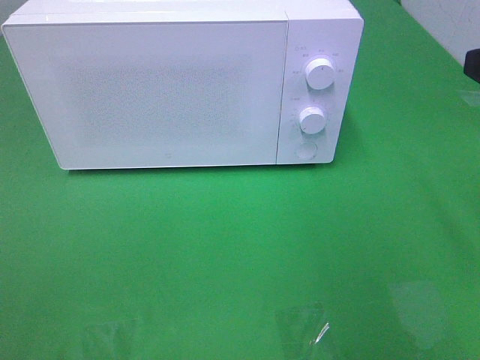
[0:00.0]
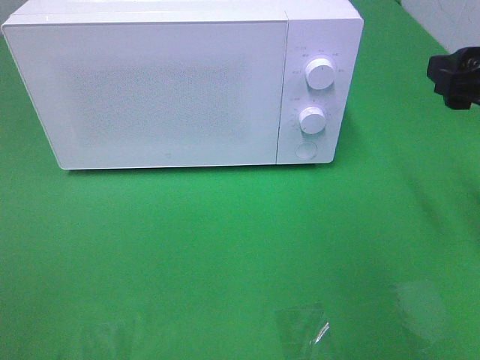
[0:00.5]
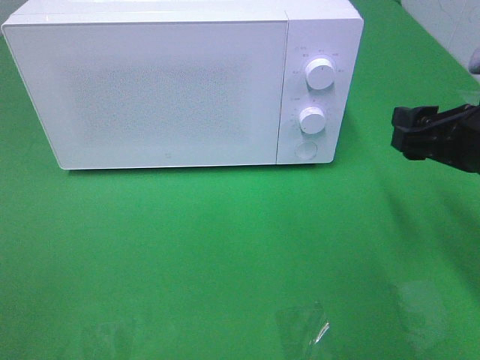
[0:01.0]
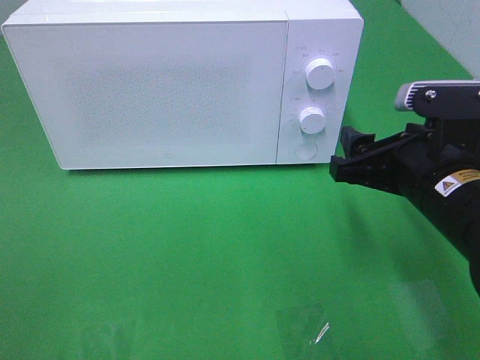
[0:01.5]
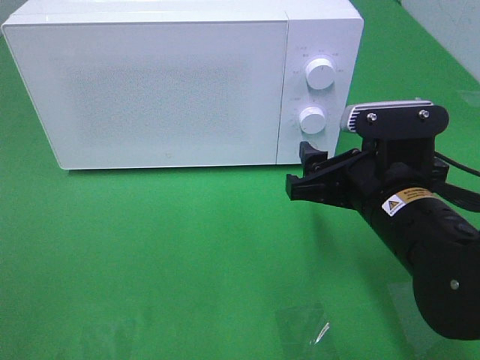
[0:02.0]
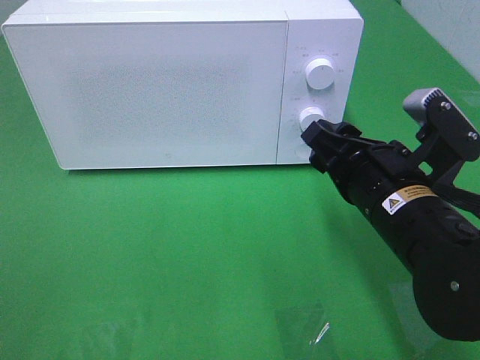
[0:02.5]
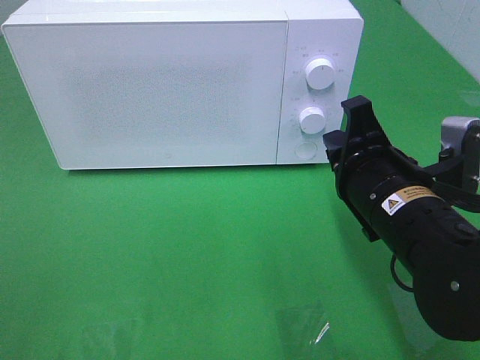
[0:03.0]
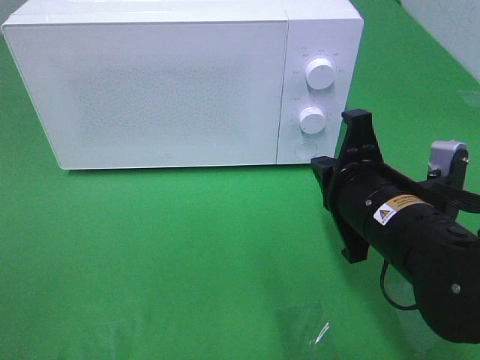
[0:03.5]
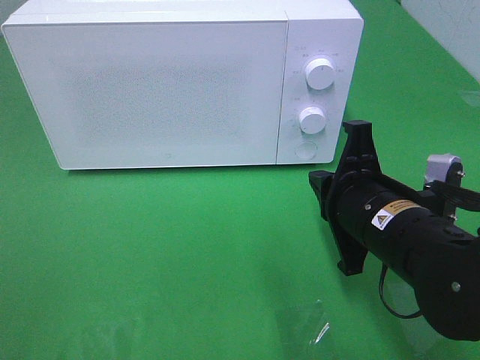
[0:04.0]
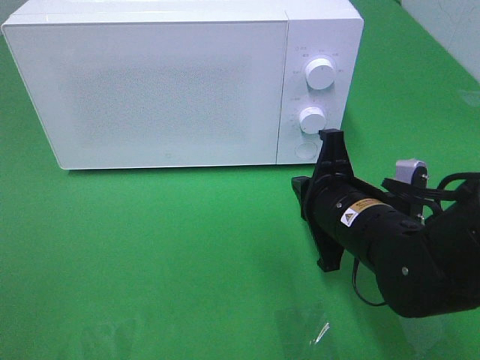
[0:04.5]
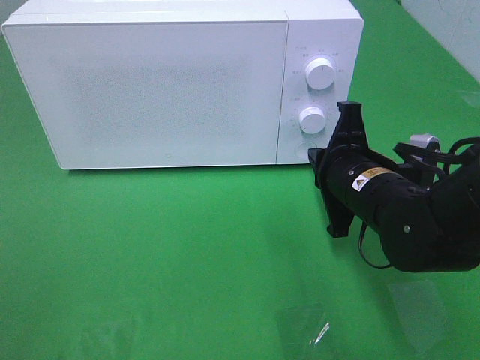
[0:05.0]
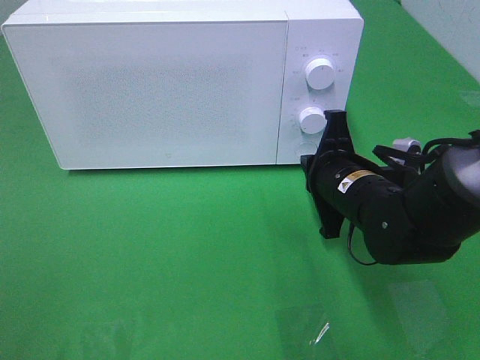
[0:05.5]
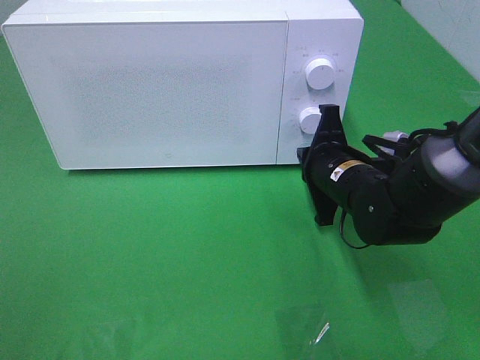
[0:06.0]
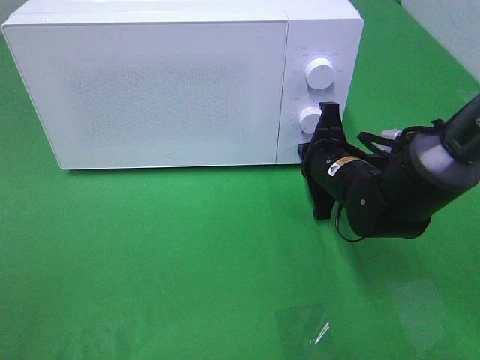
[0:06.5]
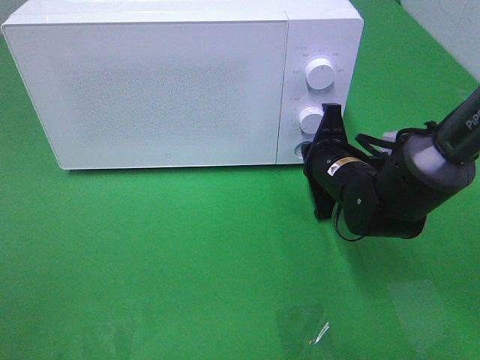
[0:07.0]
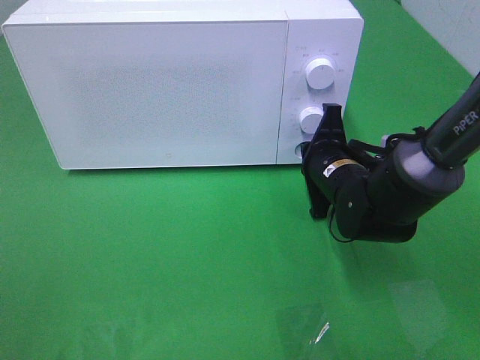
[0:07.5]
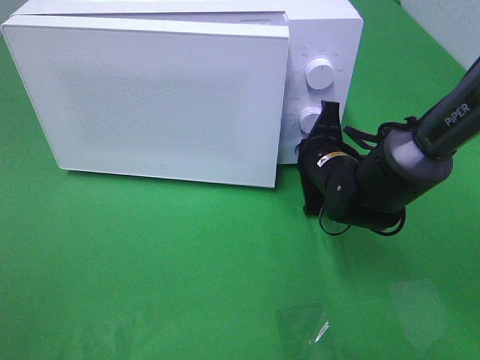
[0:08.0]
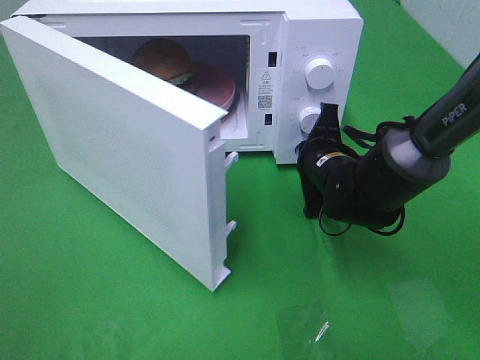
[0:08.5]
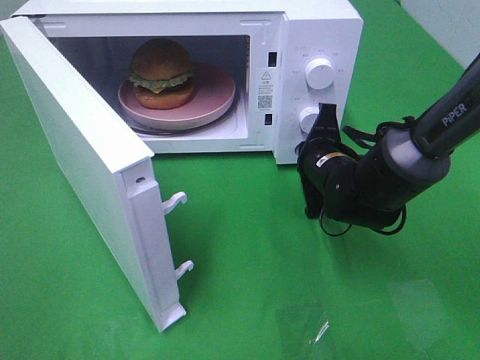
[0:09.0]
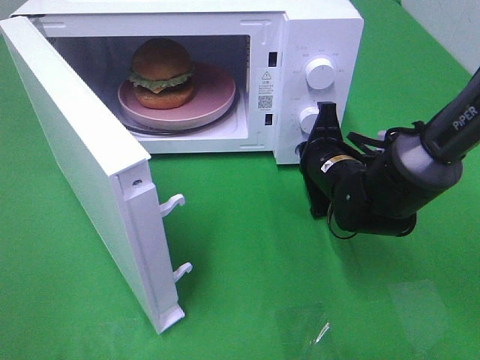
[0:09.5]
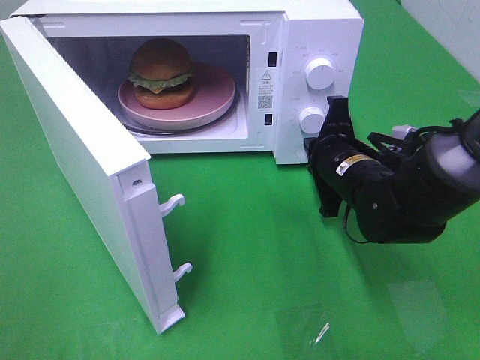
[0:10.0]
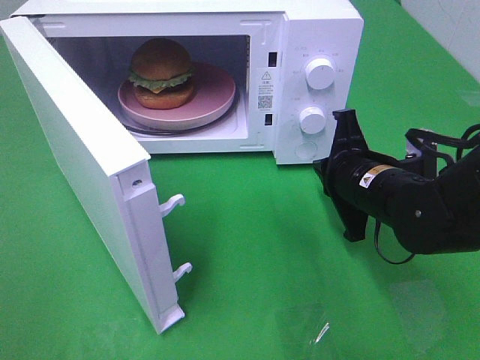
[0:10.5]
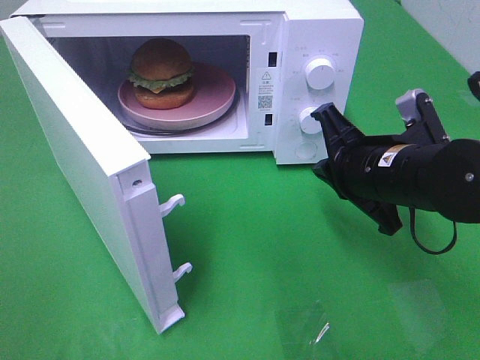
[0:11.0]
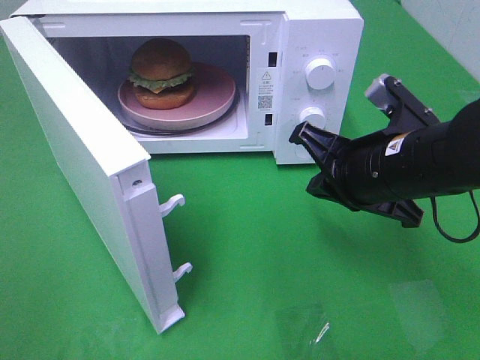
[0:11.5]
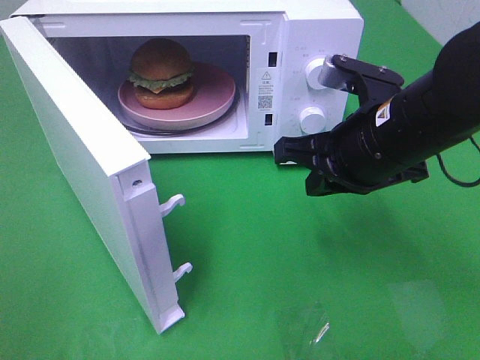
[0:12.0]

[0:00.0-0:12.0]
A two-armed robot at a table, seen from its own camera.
Task of the whole recording: Heat the burger.
Step, 0.0 to 9.5 s: Right hand: press the switch.
0.0 to 2.0 s: The right gripper shifts roughly 20 cm downward and to the left.
2.0 to 4.0 s: The right gripper closes up.
4.0 to 6.0 s: The right gripper goes some 10 cm forward.
6.0 to 8.0 s: There are only small adjustments of the grippers.
10.0 to 12.0 s: The right gripper shifts some 10 cm upward and backward.

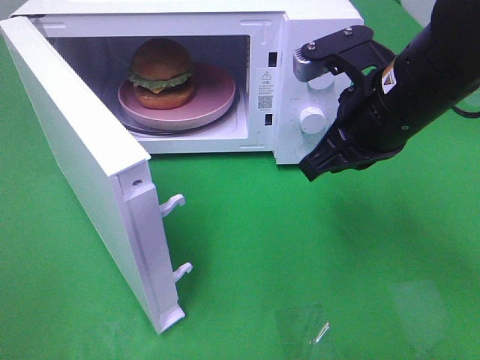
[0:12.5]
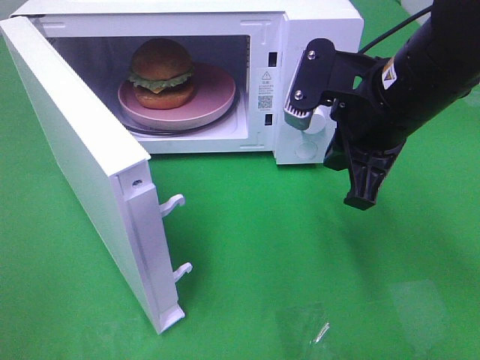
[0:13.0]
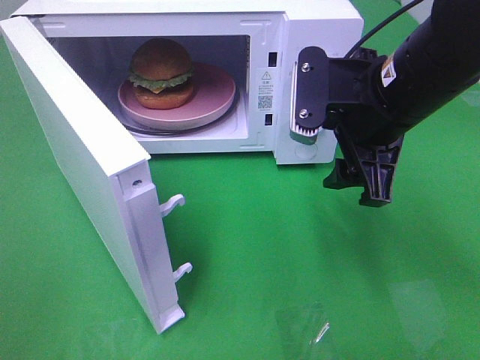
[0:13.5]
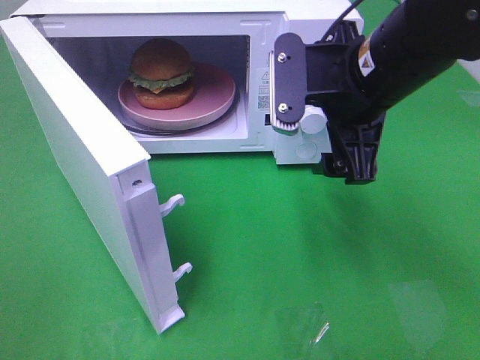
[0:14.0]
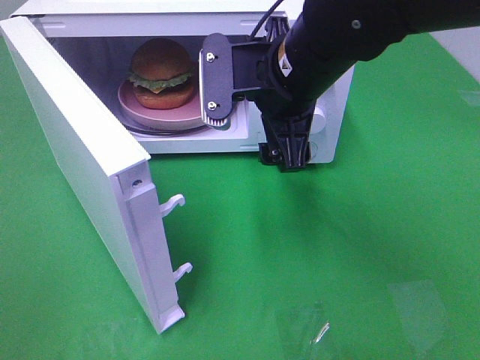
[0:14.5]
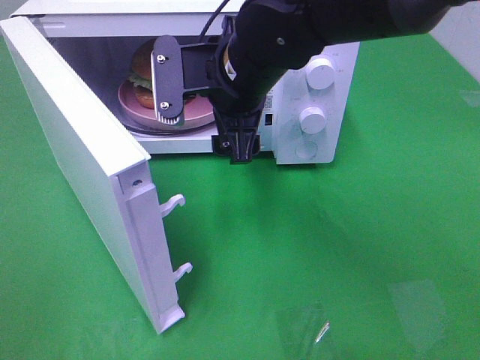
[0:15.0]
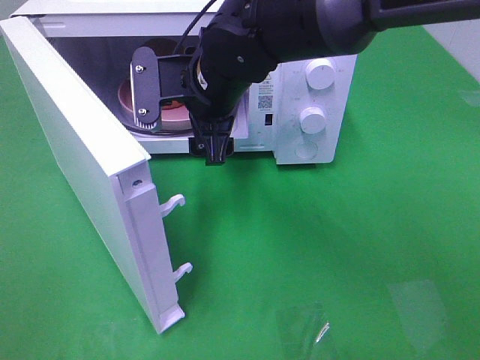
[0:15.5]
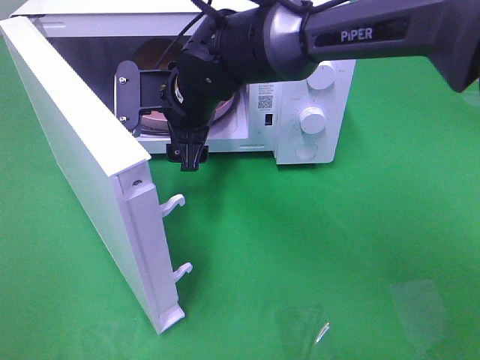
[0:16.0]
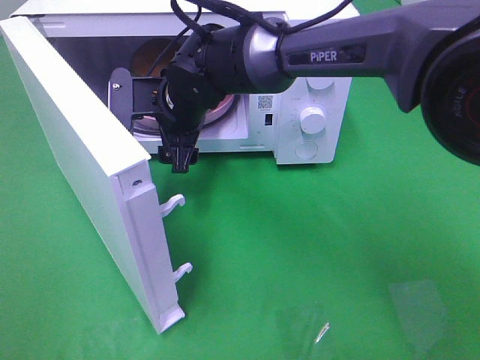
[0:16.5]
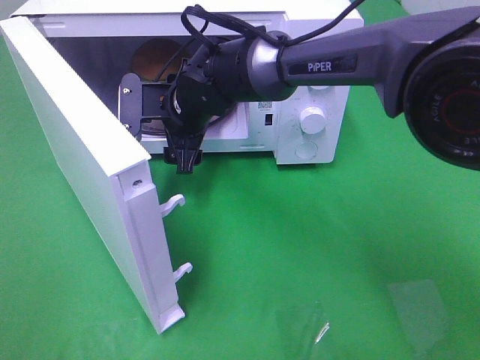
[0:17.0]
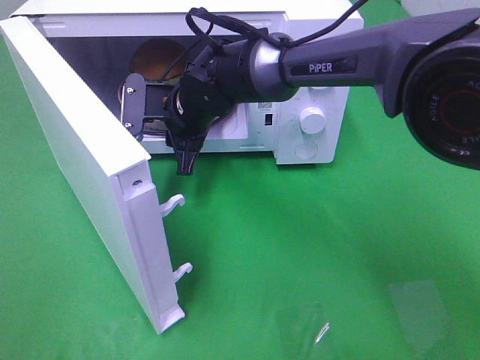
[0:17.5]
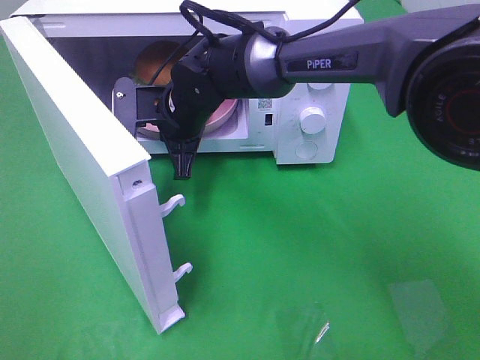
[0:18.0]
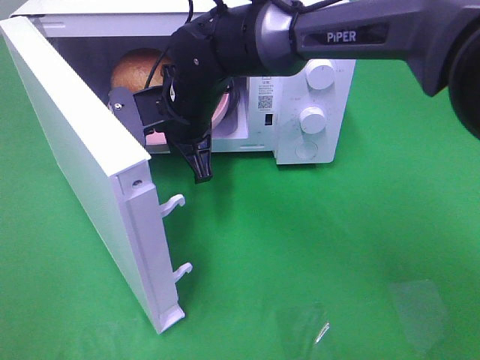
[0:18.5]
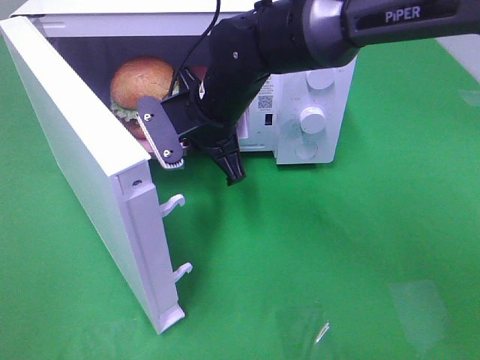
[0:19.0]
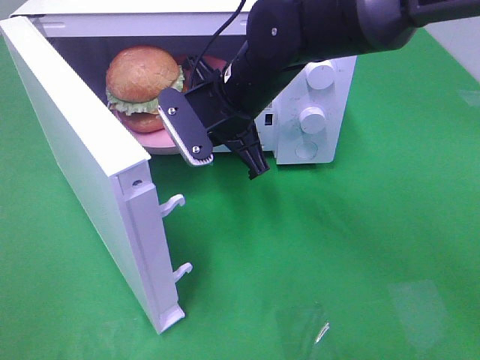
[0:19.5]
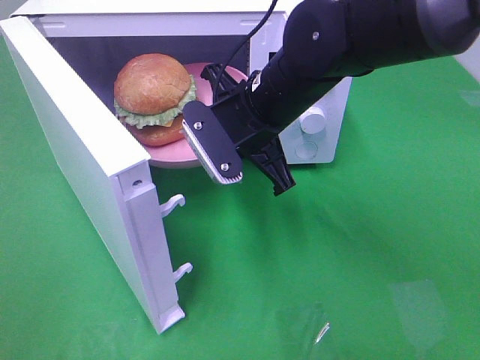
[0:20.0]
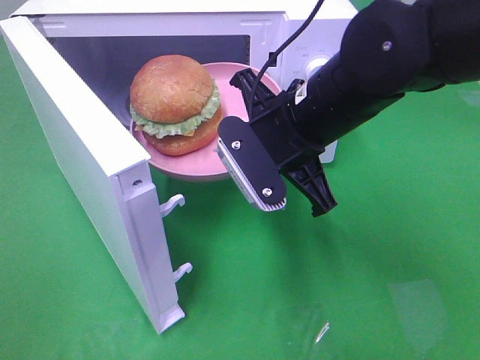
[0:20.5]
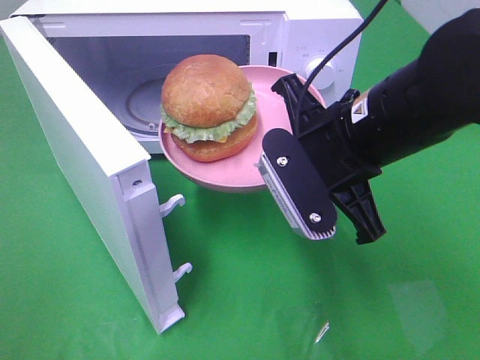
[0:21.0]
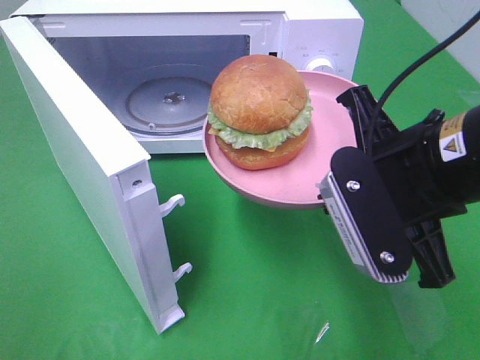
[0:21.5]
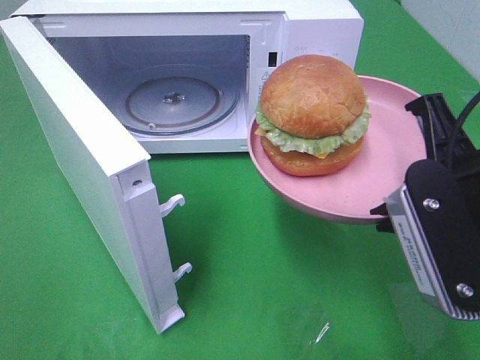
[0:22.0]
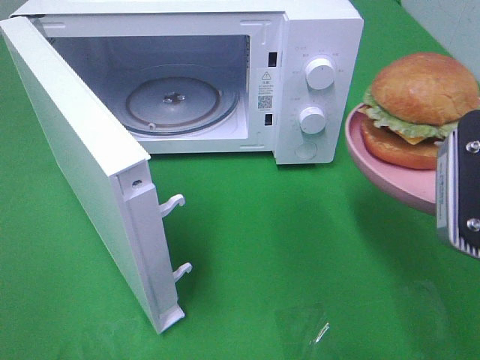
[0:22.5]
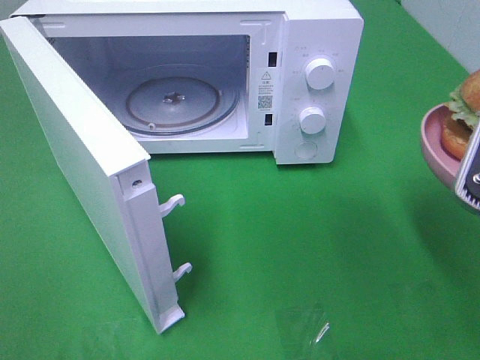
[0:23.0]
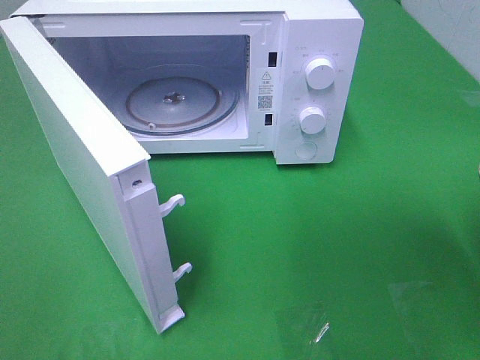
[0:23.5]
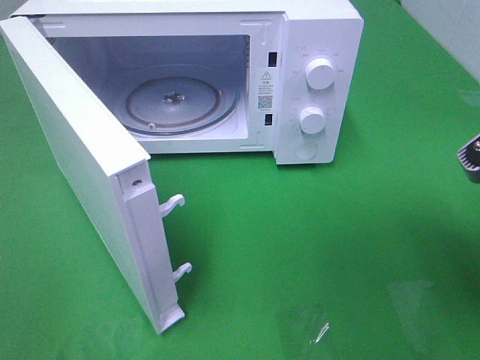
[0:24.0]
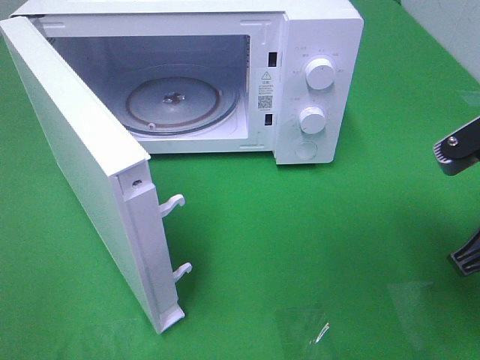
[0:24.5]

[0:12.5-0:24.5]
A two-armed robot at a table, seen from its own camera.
Task of the whole recording: Heat the burger.
Step, 12.5 to 17.5 s: Right hand: grab the plate with the hamburger.
12.5 to 14.5 s: The right gripper moves to the left, about 10 cm, and opens up.
14.5 to 16.5 s: The right gripper heads to the left, downward and forward, covering about 15 cm.
16.5 to 18.5 s: The right gripper closes its fingers.
18.5 to 20.5 s: The right gripper is displaced to the right and backward by roughly 15 cm.
20.5 to 22.5 s: The right gripper travels to the right and backward by roughly 20 cm.
22.5 to 24.5 s: The right gripper ends up about 5 cm from where it was.

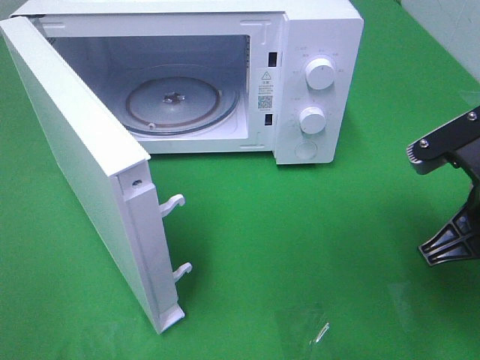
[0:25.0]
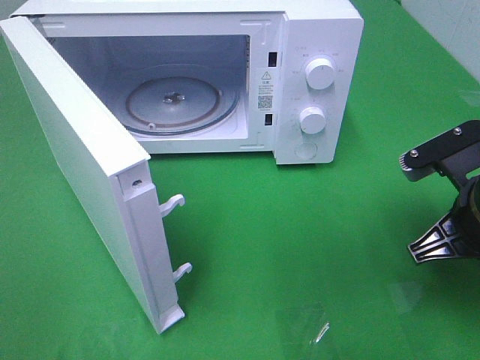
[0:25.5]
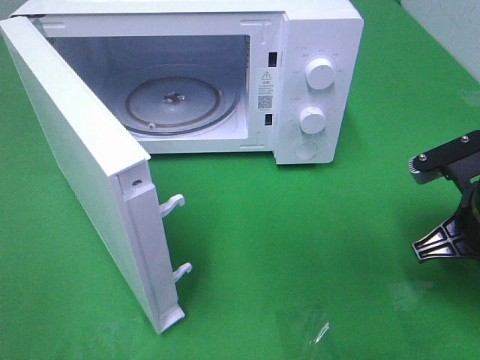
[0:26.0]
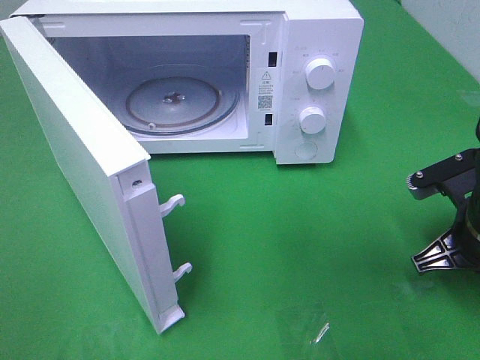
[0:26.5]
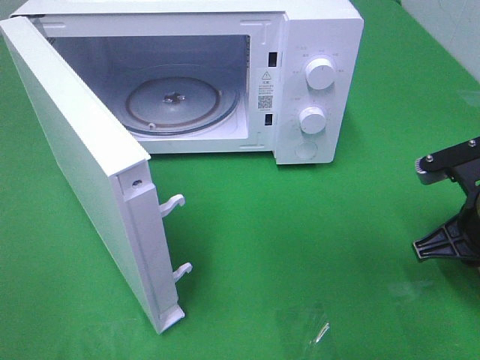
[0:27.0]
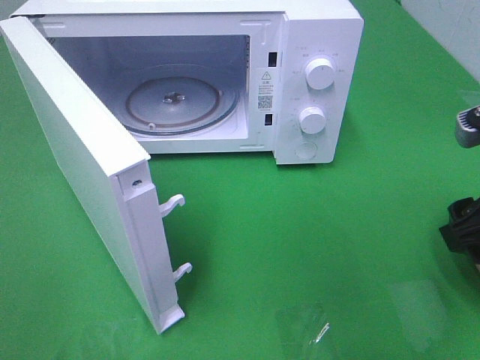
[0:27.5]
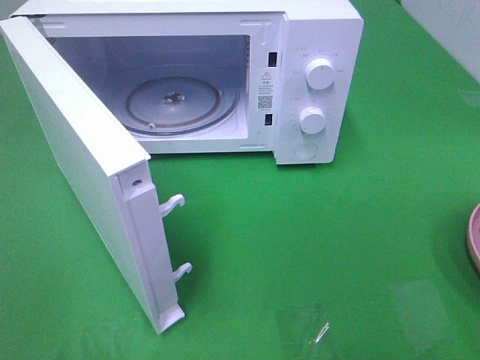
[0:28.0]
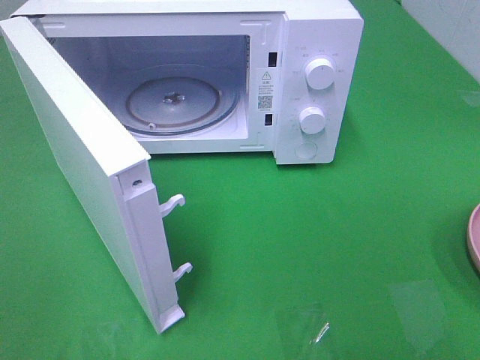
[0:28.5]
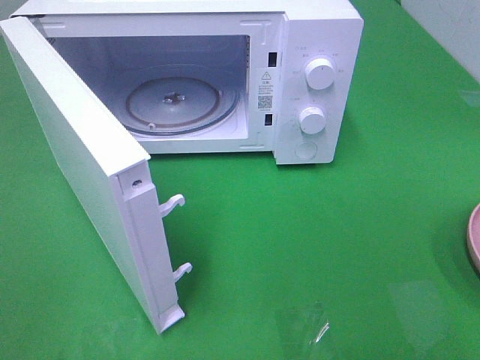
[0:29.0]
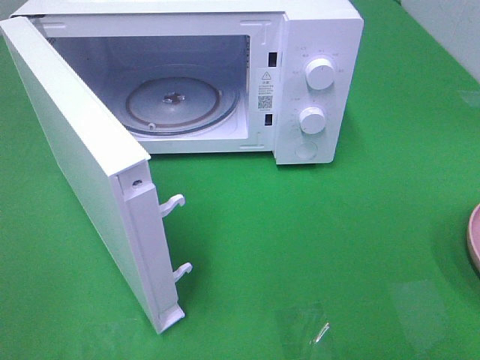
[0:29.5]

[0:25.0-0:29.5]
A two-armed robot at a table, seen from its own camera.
Task of the whole recording: Heat the burger.
25.0 to 27.0 s: The right gripper heads downward, covering roughly 5 cm.
27.0 to 29.5 s: The right gripper moves backward and upward, about 25 cm, and opens up.
